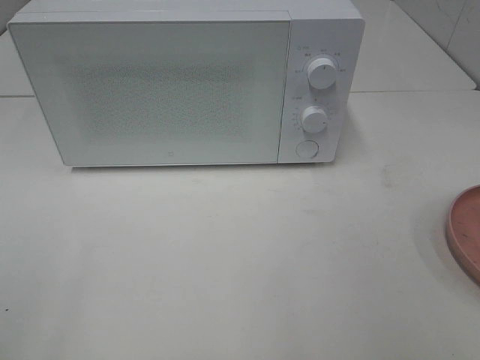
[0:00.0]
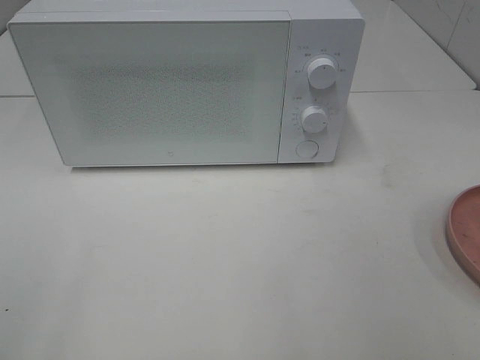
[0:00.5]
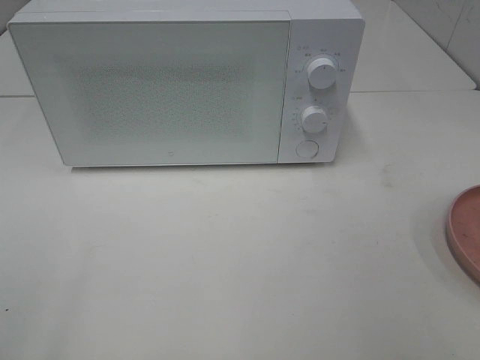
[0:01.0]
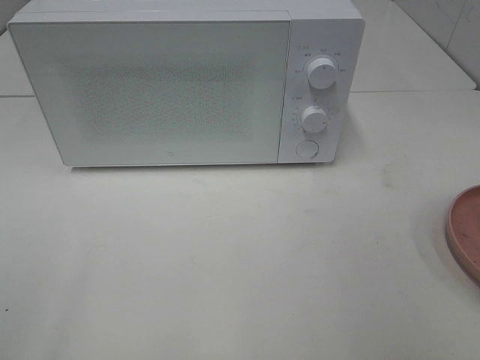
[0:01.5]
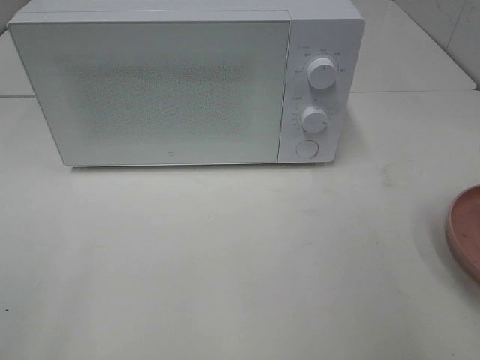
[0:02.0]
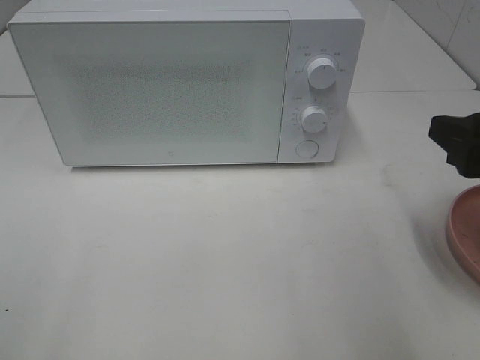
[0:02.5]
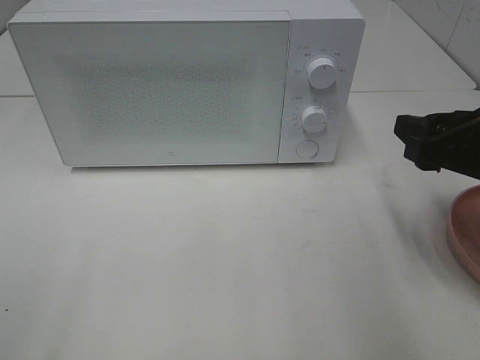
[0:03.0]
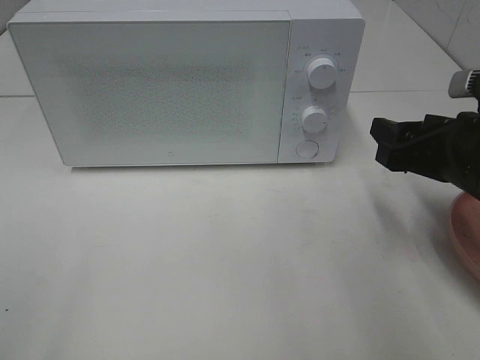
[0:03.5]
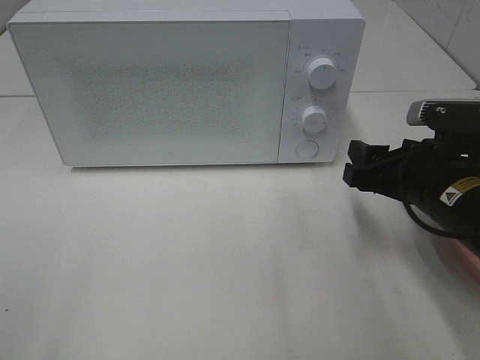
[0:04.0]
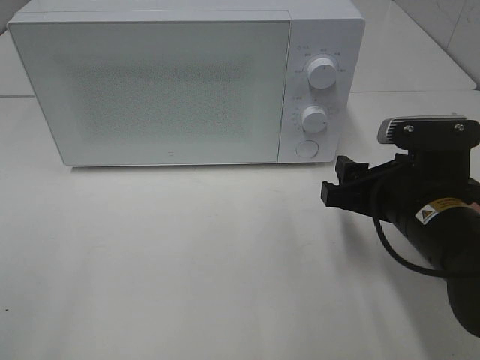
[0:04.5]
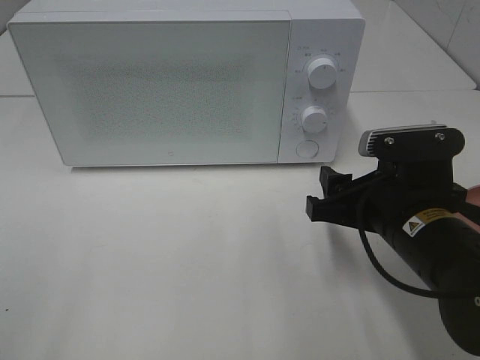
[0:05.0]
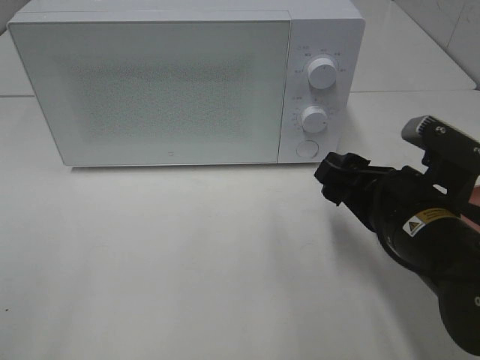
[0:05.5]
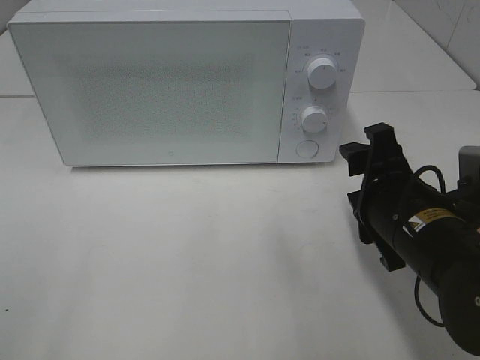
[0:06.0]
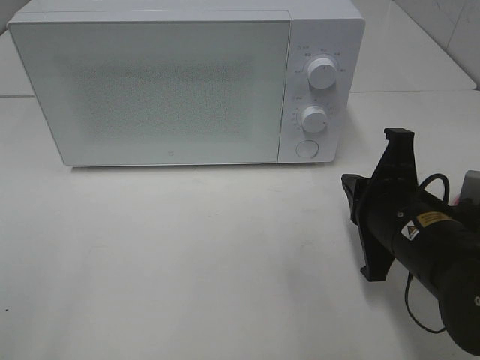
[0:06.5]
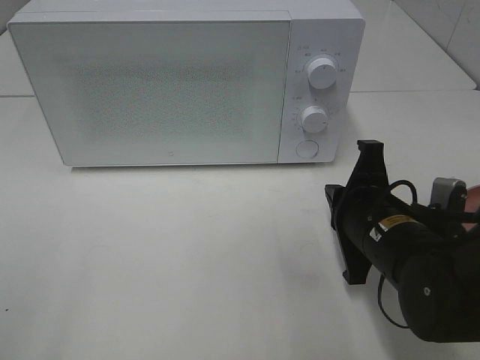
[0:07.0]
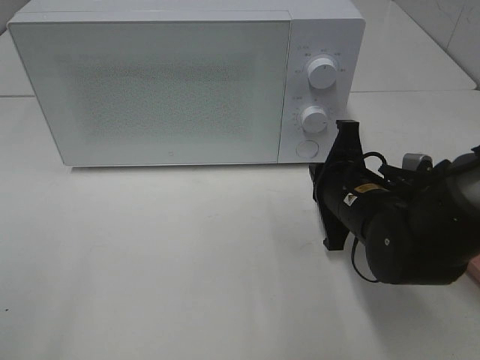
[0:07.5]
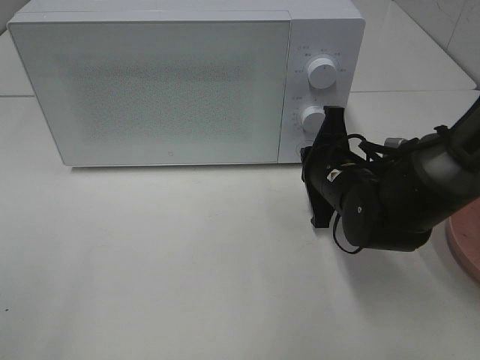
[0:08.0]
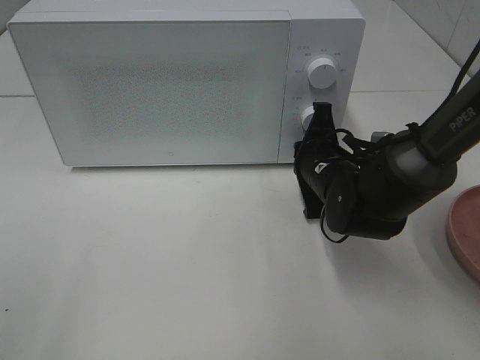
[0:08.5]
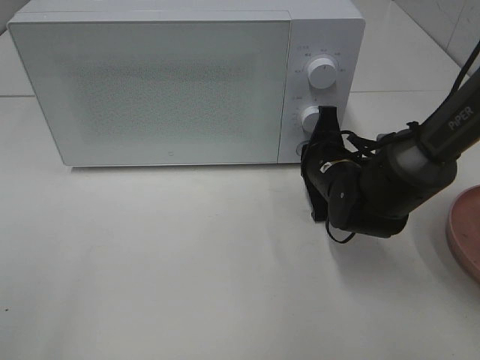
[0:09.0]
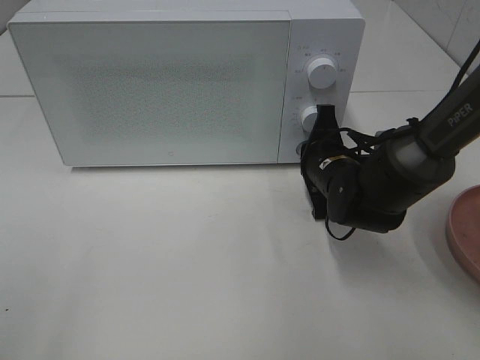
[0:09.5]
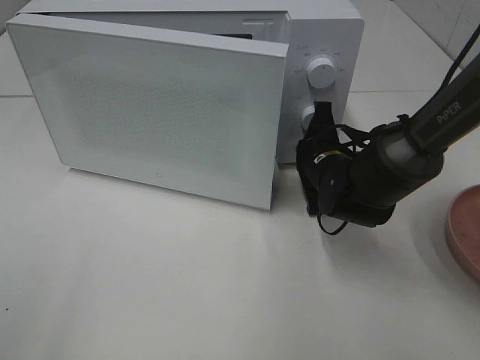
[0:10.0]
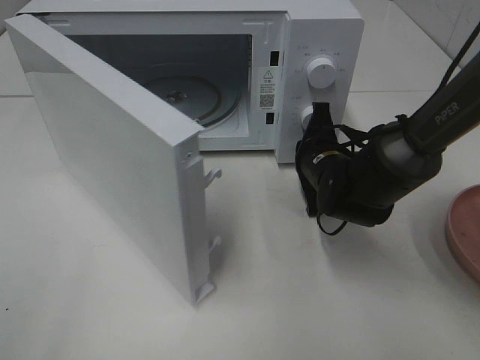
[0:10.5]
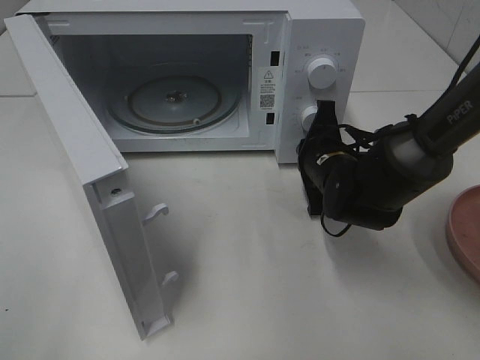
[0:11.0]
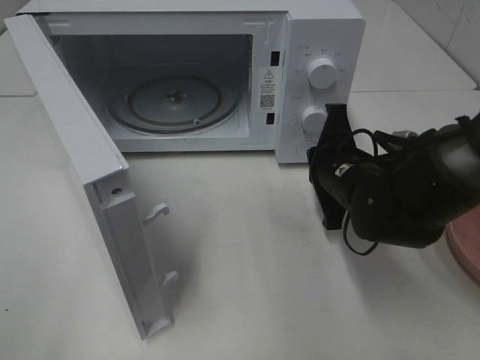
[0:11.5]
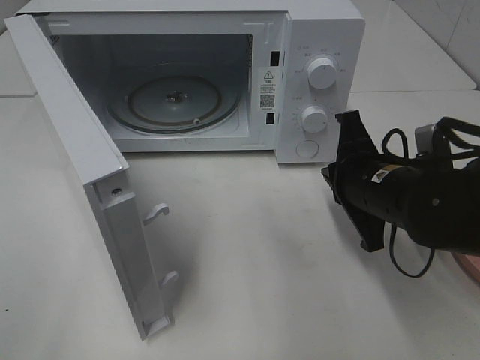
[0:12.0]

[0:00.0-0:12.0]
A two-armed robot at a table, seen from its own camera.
Task of the whole recording: Heat the burger.
Step, 0:00.0 to 0:11.5: Right hand: press the switch.
0:02.0 to 0:04.0: The right gripper shifts roughly 20 cm forward, downward and to the left.
0:04.0 to 0:06.0: The right gripper moves approximately 5 cm.
0:06.0 to 0:08.0: The right gripper travels forward by approximately 10 cm, and closes its fingers.
0:08.0 to 0:10.0: The grippers stay close to where they were, moving slightly.
0:10.0 to 0:12.0: The right gripper travels backward and upward by roughly 10 cm.

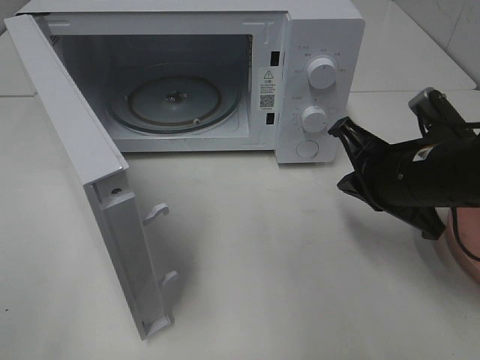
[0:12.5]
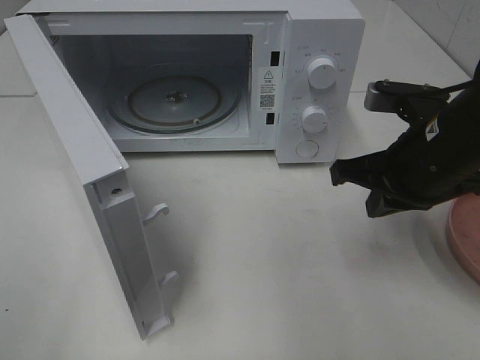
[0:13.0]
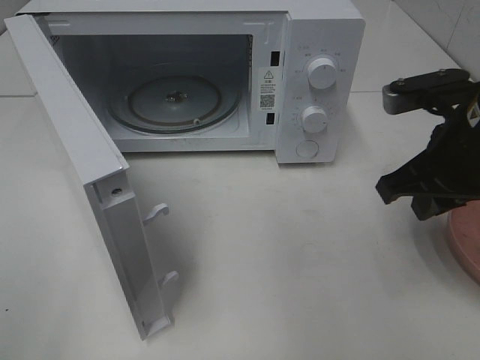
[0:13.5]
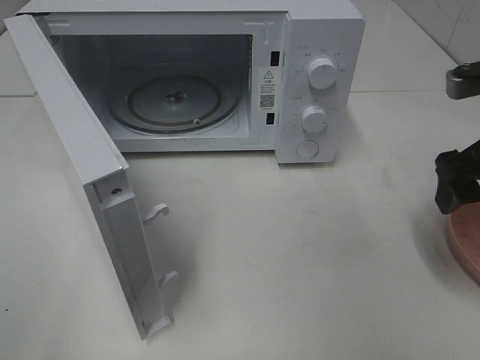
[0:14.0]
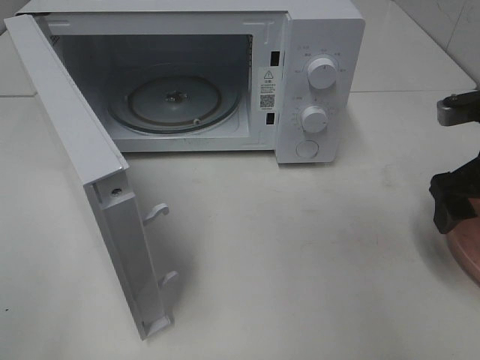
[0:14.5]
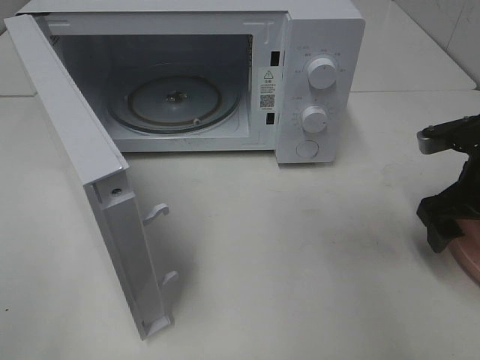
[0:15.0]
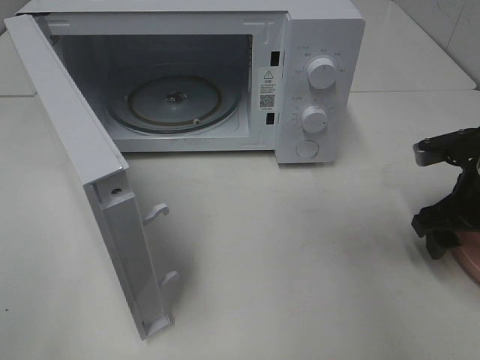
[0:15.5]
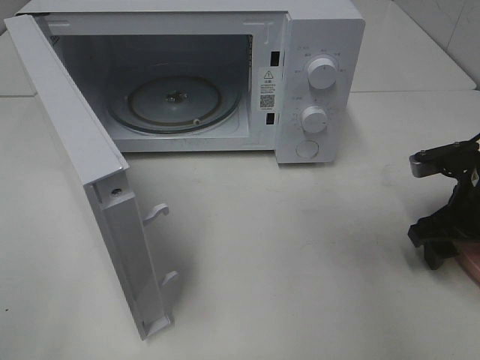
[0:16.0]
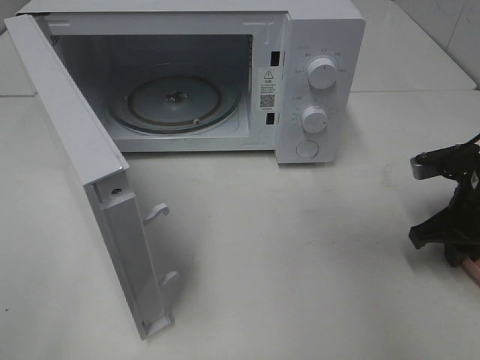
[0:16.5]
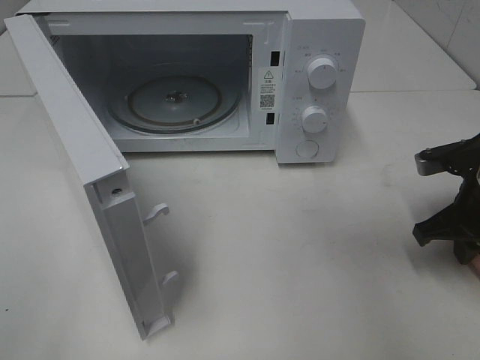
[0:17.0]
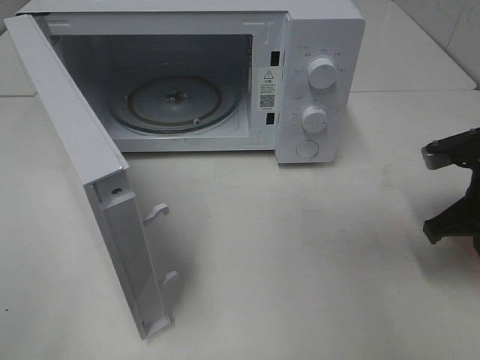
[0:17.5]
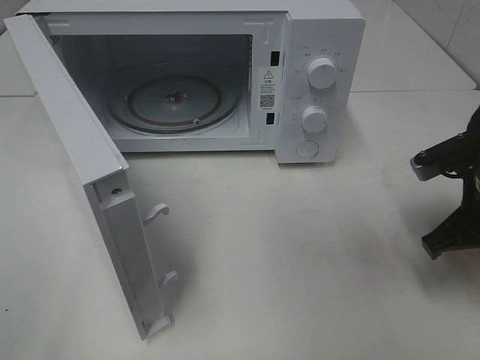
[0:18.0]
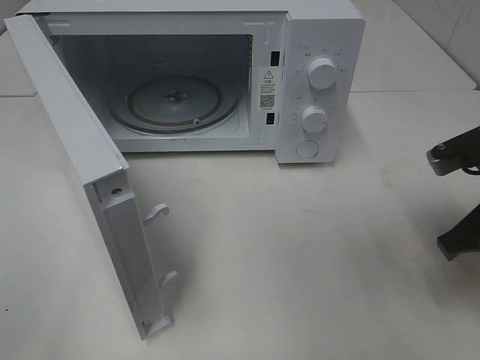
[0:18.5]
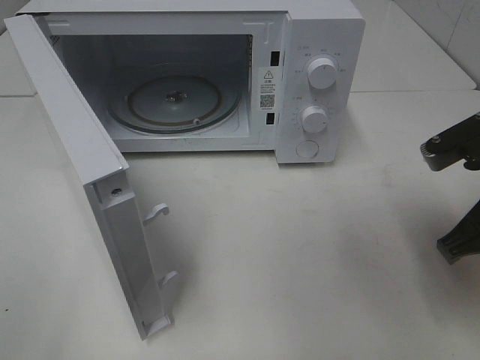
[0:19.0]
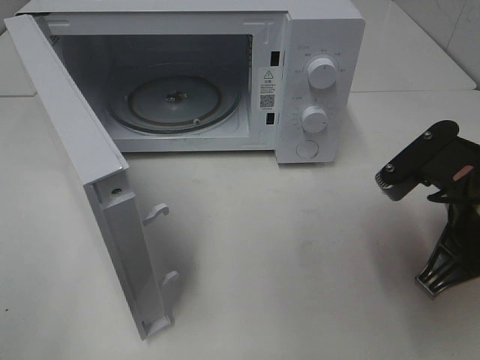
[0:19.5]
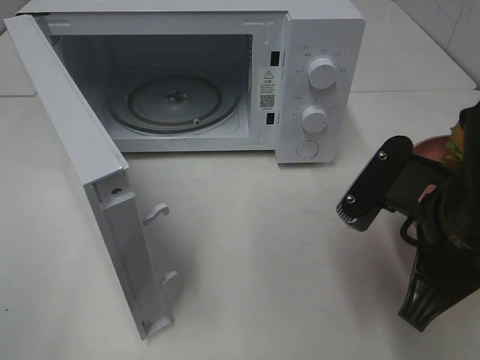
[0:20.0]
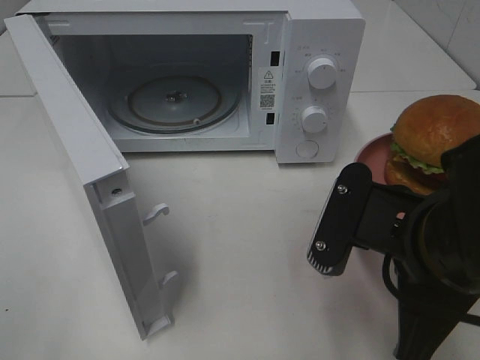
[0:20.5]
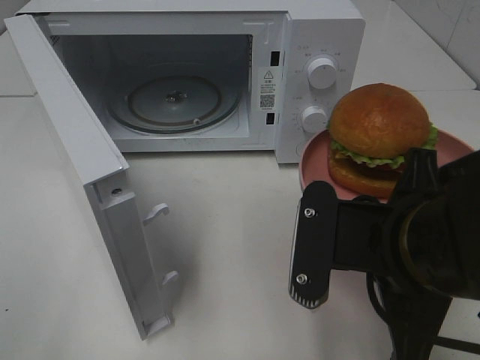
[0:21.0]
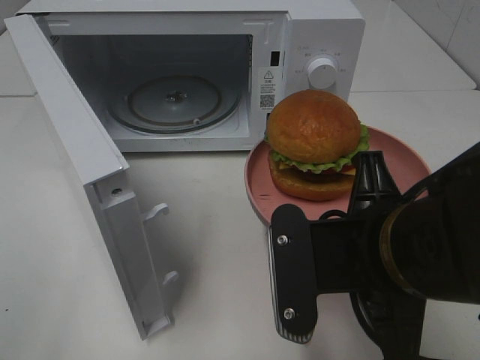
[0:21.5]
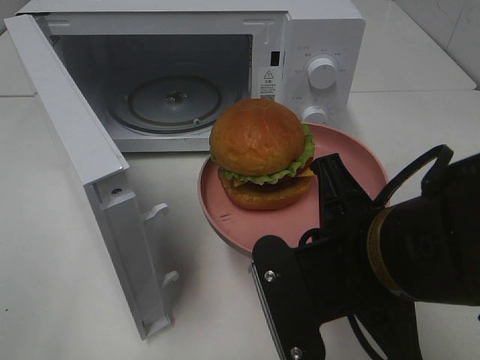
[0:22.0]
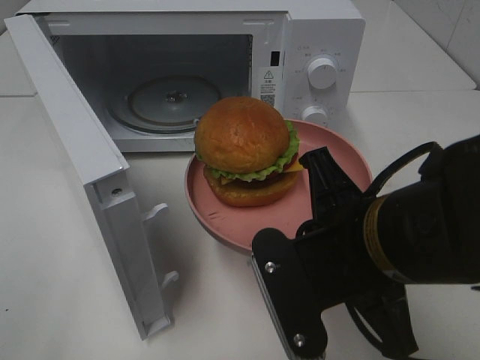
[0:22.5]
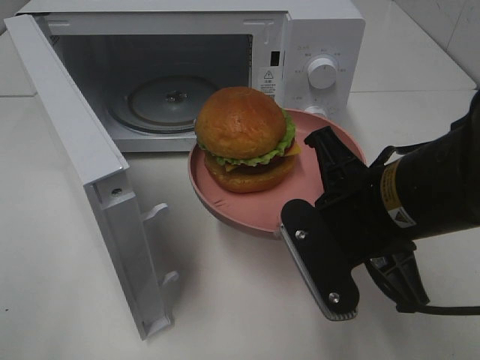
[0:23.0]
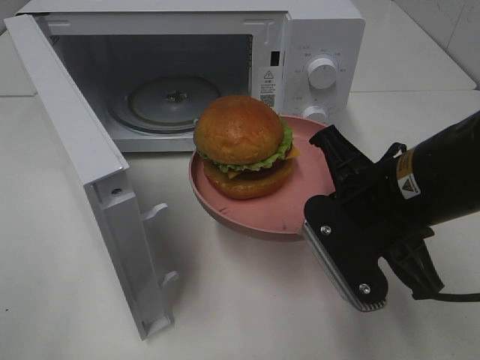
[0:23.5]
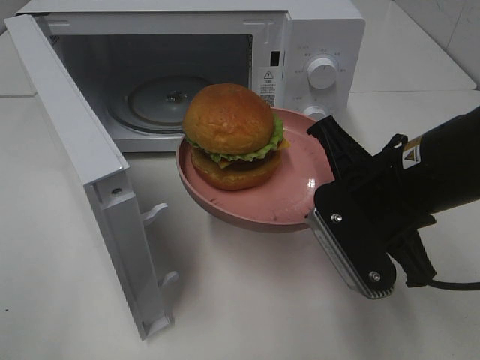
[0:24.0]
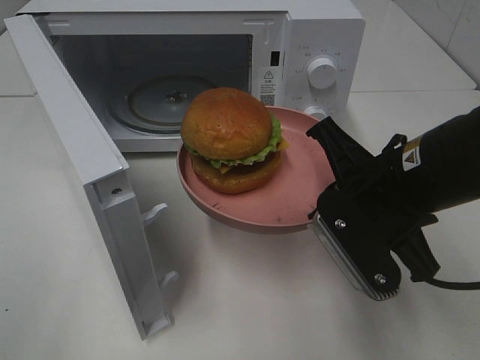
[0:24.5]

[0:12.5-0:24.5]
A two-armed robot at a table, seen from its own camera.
Task of the whole recording: Heat the burger.
Step, 0:12.5 to 0:17.5: Right hand: grab the plate with the hamburger.
0:12.5 to 0:14.5: The right gripper heads to the right, covering about 10 cm, and opens up.
0:14.5 to 0:16.5: The right gripper heads downward, covering roughly 10 cm, and closes up.
0:16.5 to 0:18.5: The right gripper travels upward and backward by about 10 cm.
0:18.5 to 0:20.5: The right gripper heads to the left and backward, covering roughly 15 cm.
0:22.5 to 0:24.5: The right gripper travels forward by roughly 5 cm.

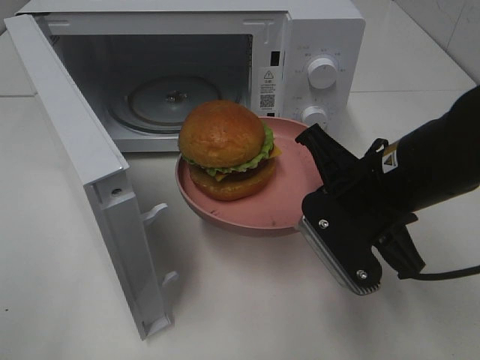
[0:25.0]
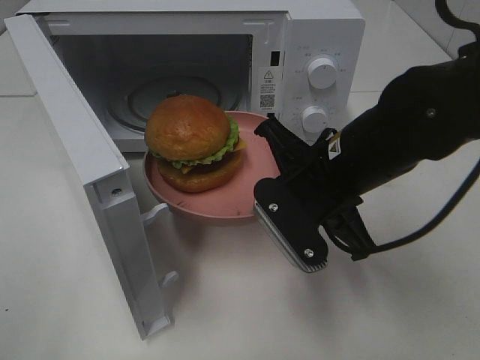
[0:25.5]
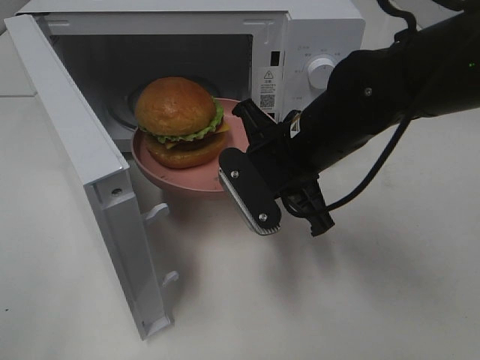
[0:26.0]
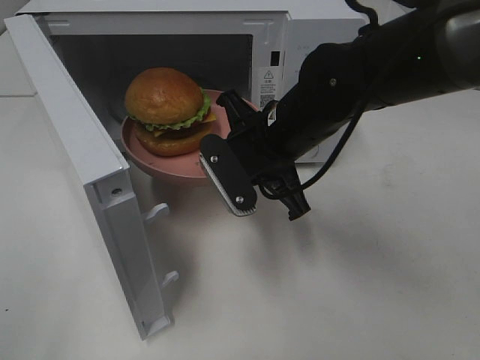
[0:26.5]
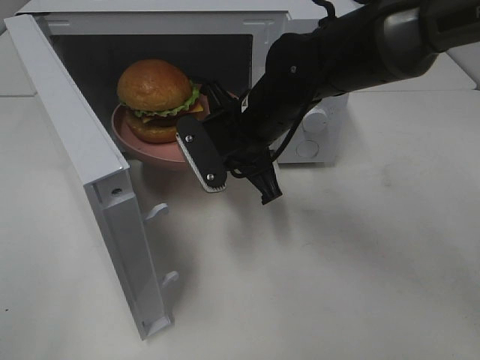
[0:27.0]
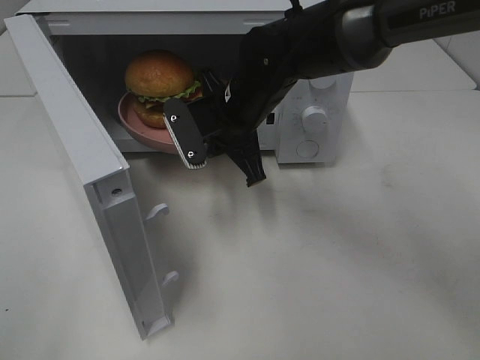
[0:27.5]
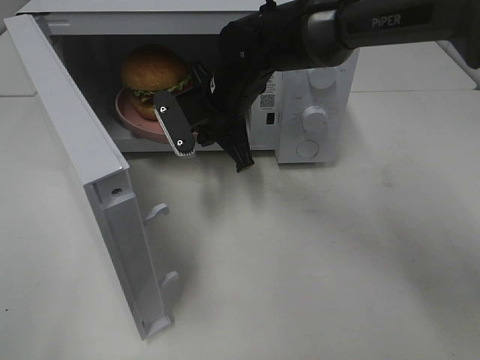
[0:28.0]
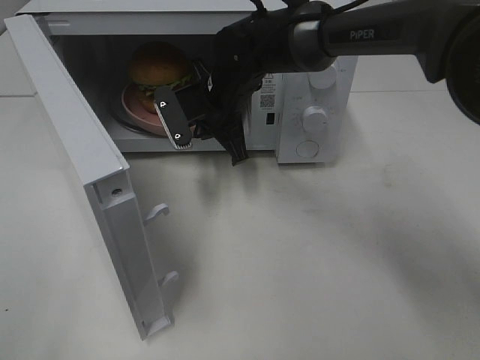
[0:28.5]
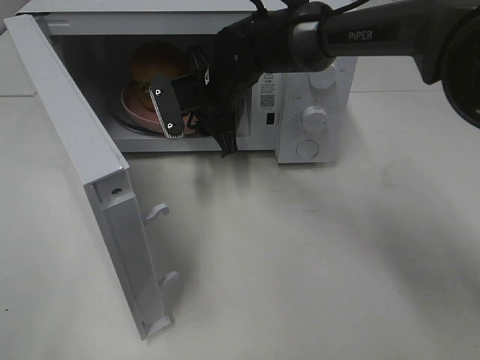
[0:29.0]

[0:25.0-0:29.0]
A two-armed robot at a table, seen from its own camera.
Task of the whole recording: Heat the burger.
0:25.0 to 0:27.0: The right gripper moves forward and to the left, approximately 15 cm.
0:27.0 to 0:29.0: The right gripper goes about 10 cm forward, and opens.
